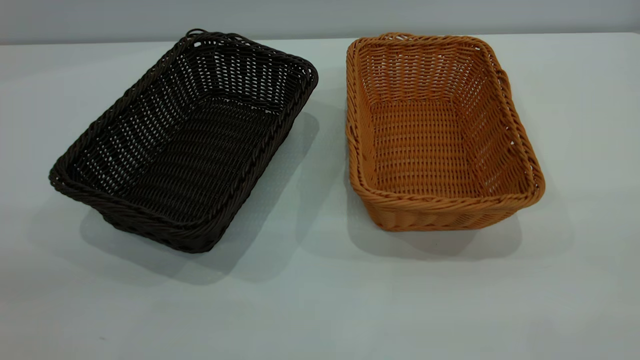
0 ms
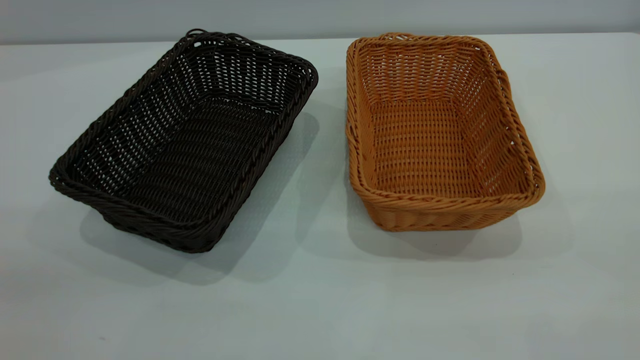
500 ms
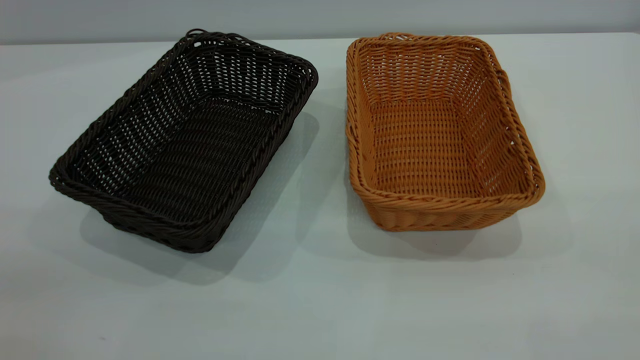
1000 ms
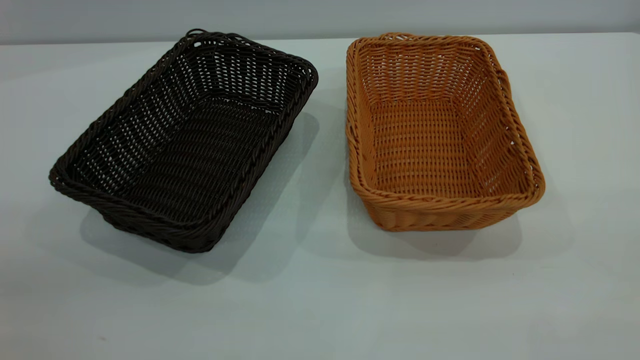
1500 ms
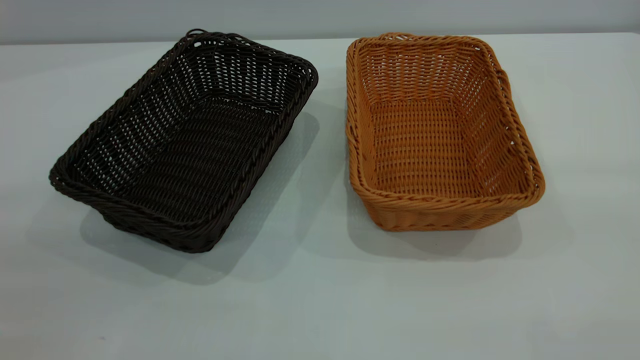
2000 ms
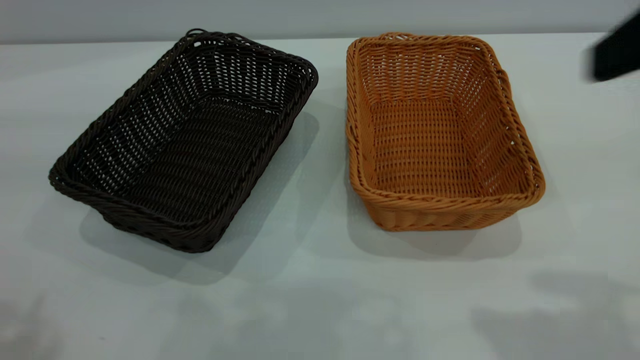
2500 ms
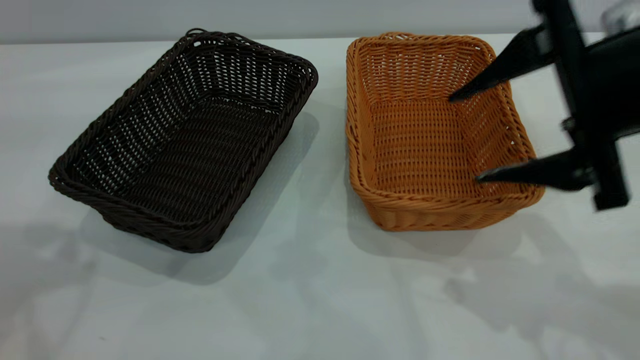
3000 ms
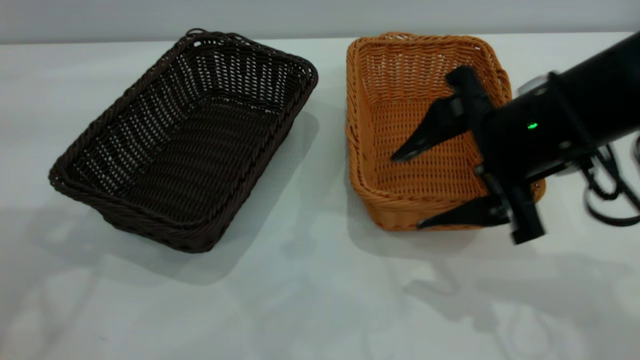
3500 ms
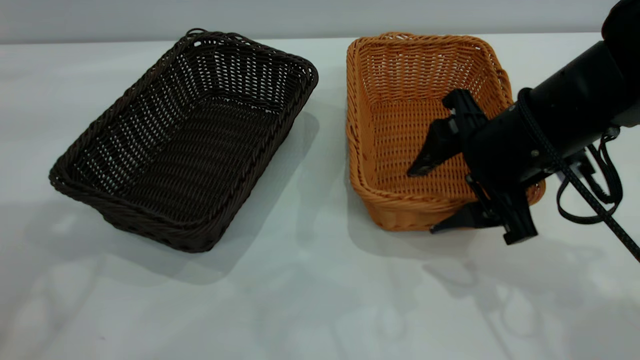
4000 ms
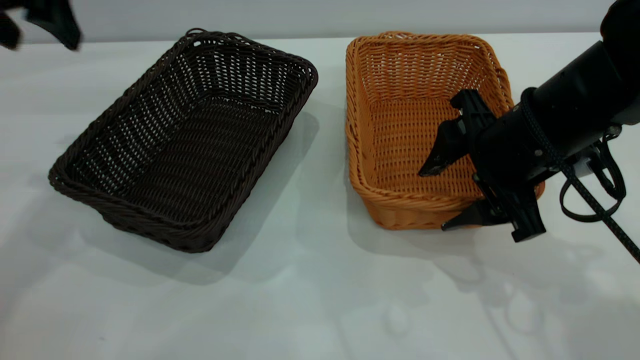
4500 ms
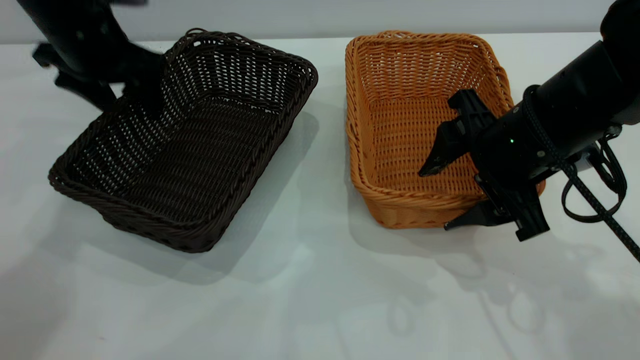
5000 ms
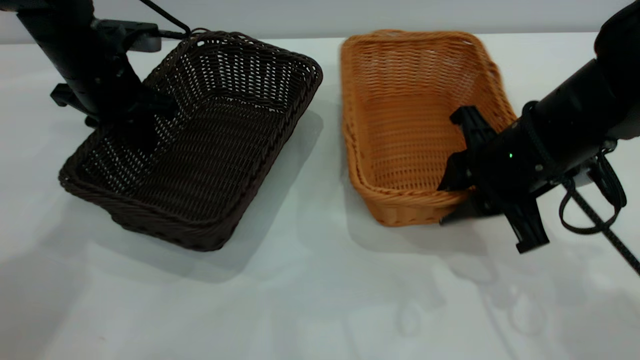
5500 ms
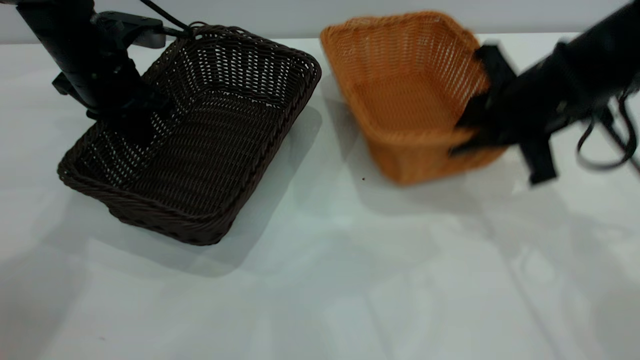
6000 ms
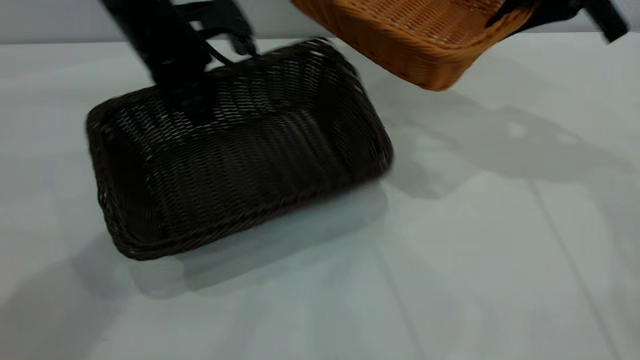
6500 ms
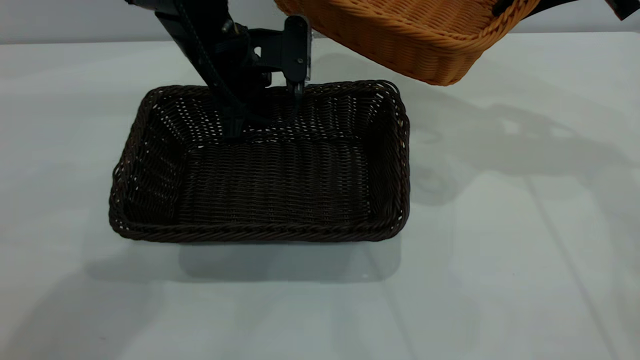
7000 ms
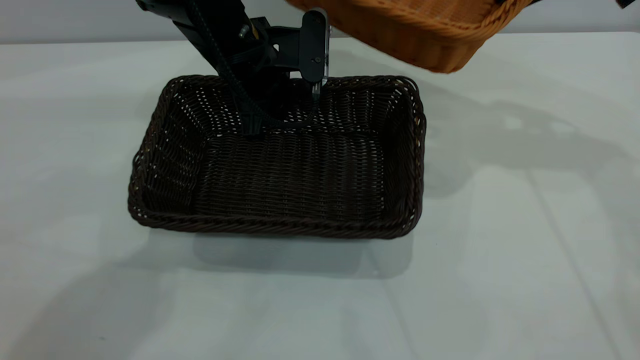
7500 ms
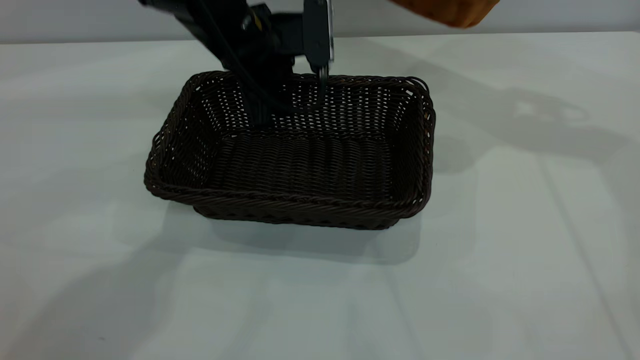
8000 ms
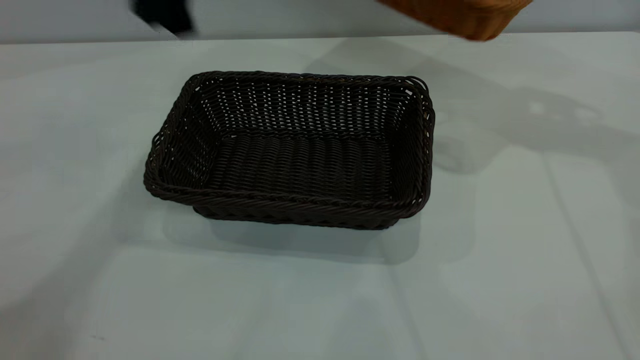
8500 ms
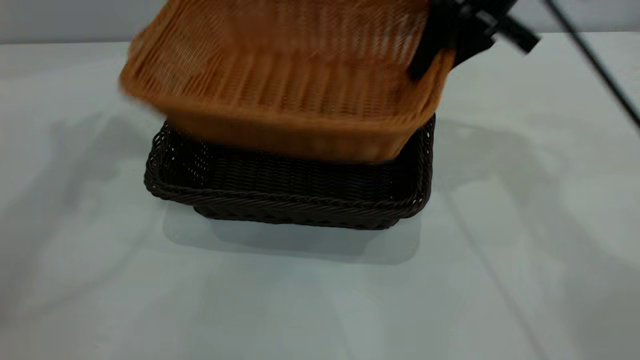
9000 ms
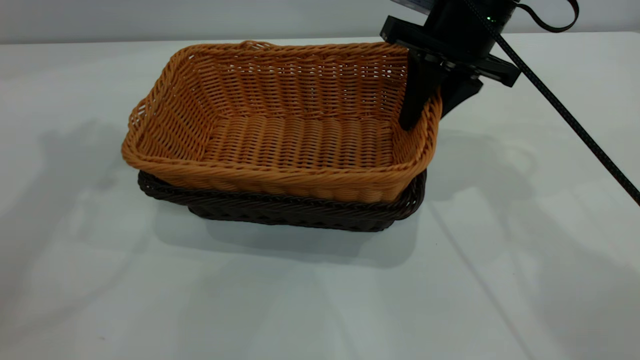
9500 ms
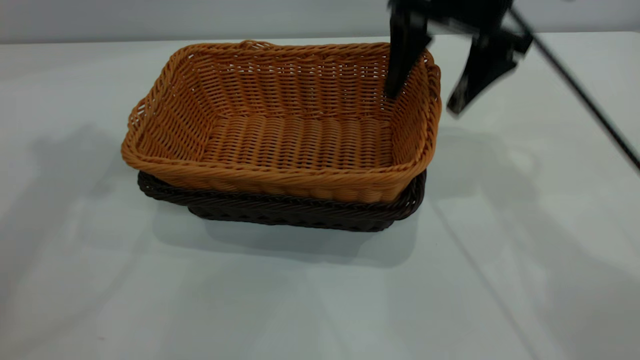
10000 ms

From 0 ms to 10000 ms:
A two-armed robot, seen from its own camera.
Task of the whole recording: the left gripper grasp the black basket and place it in the center of the table, the right gripper grasp the brown basket and place it inside the black one.
Step, from 0 ms to 6000 ms: Pick up the light basket with the right gripper.
Step, from 6500 ms to 8000 ms: Move the dark basket to the center of view.
From 2000 ms to 4000 ms: The right gripper heads forward, downward and to the left, covering some 35 cm.
From 4000 ms to 6000 ms: The right gripper is displaced forward by roughly 5 cm, and closes up. The left gripper heads downward and forward, covering some 25 cm, and closes its fingers.
From 6000 ms to 8000 ms: The left gripper goes about 15 cm to the right, and opens its fingers, while the right gripper travels upward, forward and to the right by some 20 cm.
From 8000 ms to 10000 ms: The right gripper is displaced to the left and downward by approximately 15 cm, and opens its fingers. Meanwhile the left gripper heads upward and to the left, covering roughly 40 cm.
